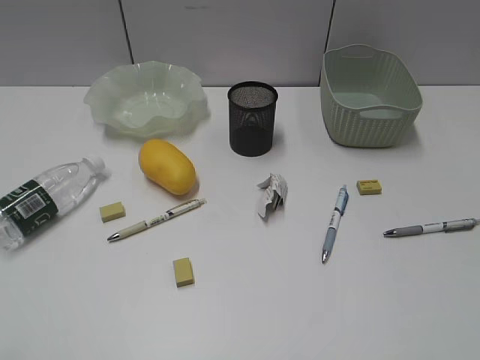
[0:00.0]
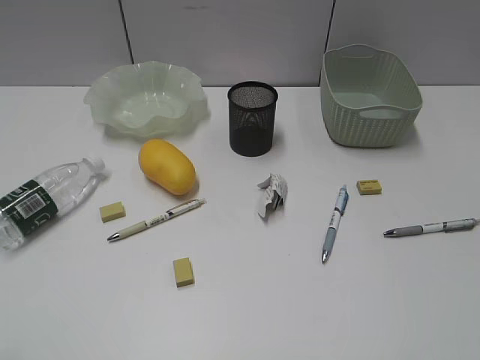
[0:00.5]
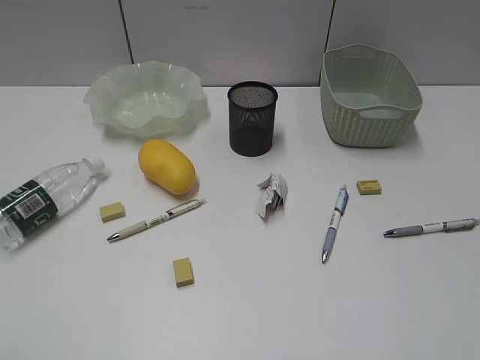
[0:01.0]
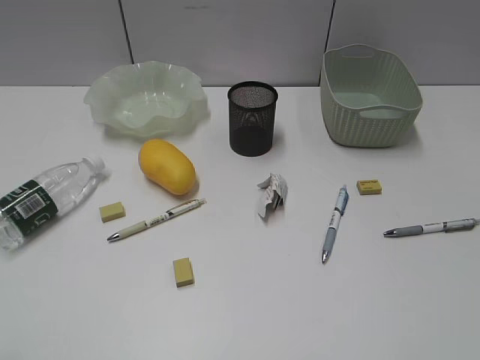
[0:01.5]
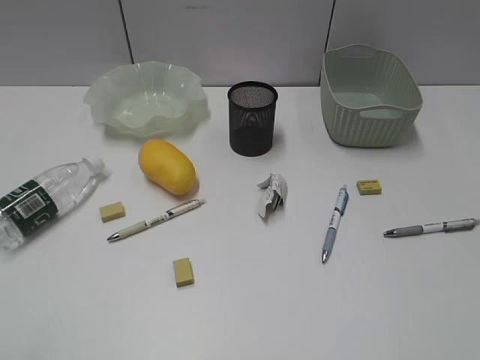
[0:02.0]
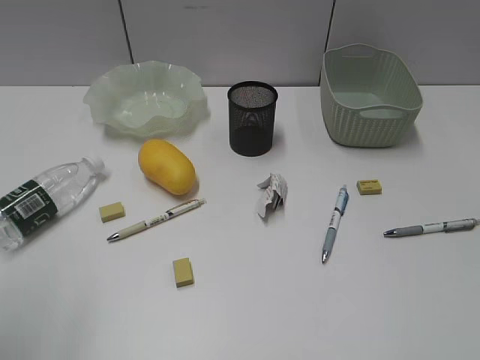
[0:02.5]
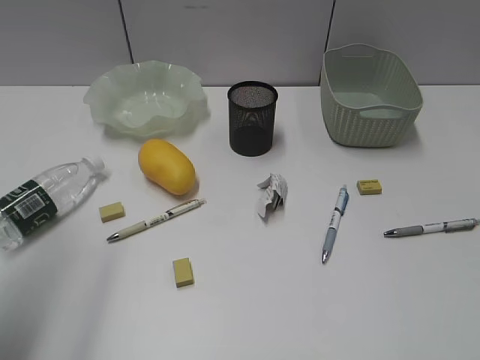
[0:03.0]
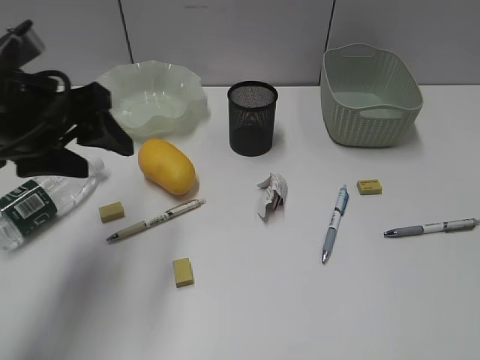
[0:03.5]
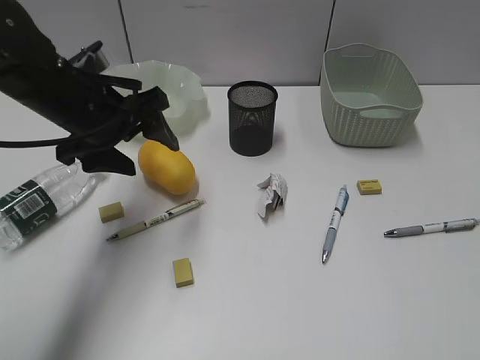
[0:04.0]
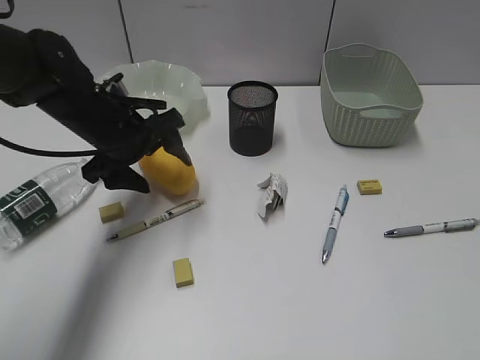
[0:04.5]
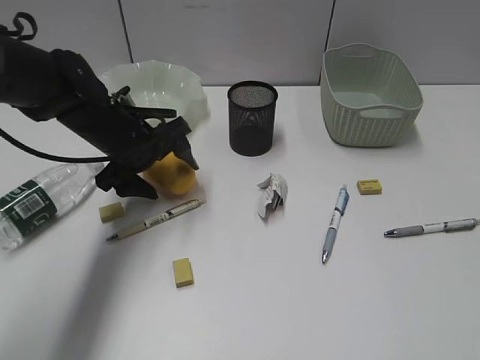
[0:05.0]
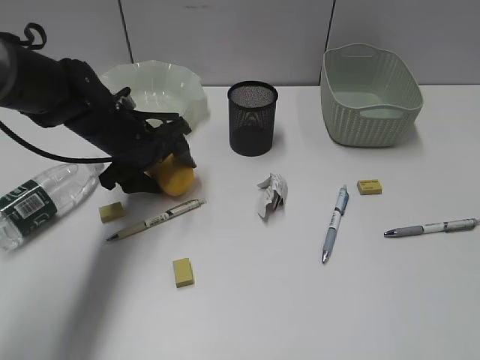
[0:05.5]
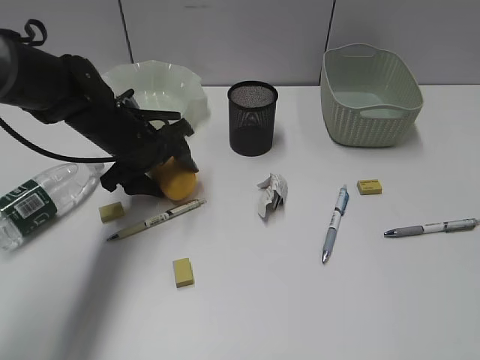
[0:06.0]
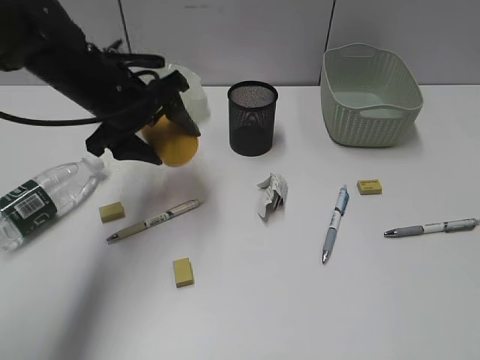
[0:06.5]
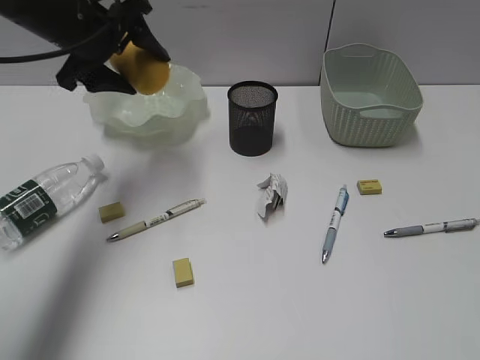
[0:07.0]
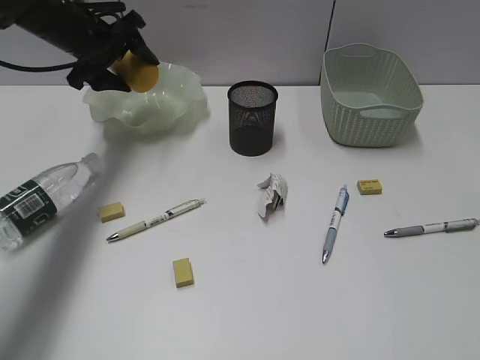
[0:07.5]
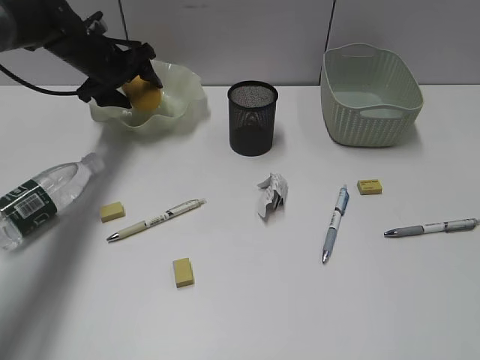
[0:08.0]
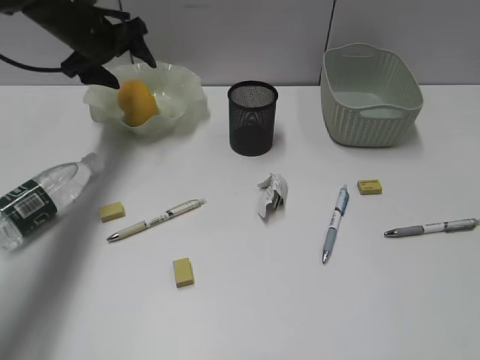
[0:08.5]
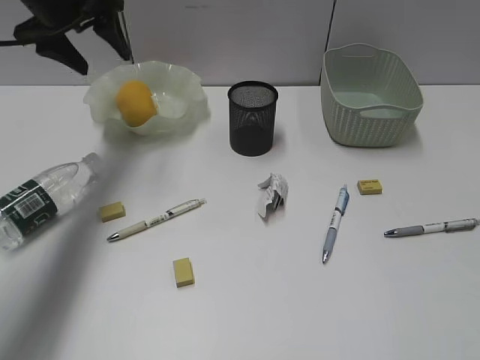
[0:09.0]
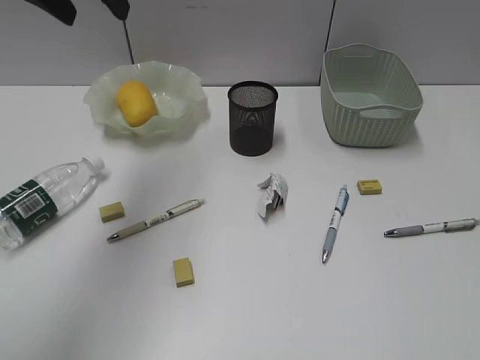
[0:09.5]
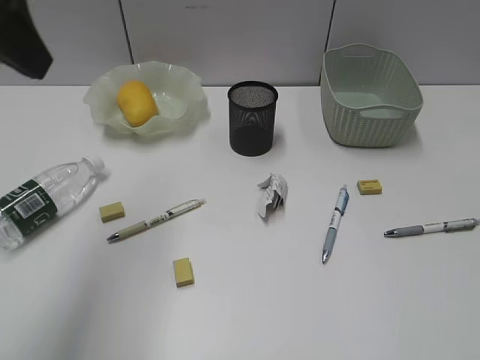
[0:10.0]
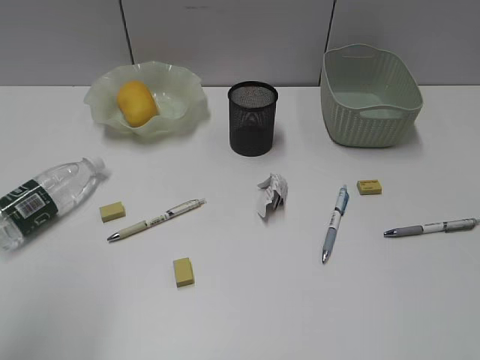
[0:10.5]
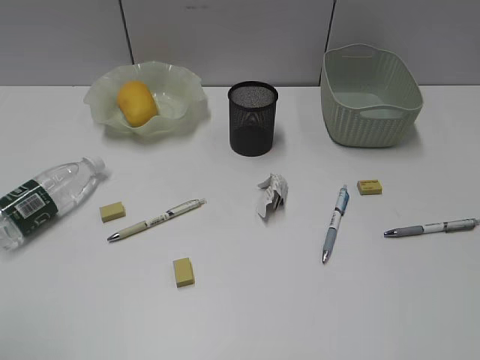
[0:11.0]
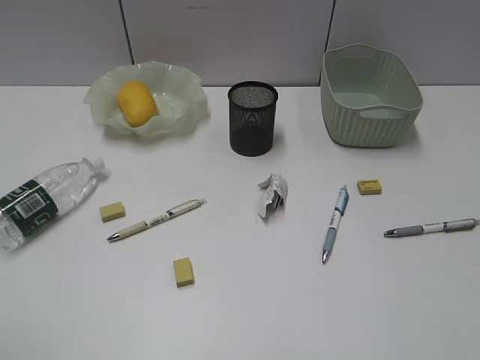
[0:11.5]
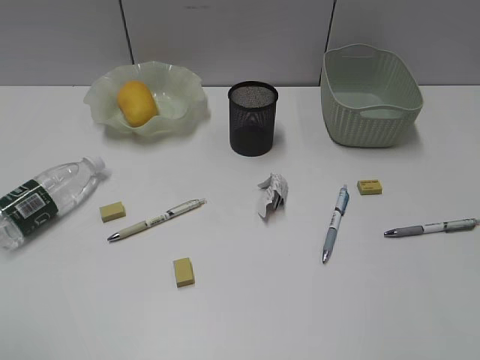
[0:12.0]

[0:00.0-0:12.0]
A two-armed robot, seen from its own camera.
Step, 0:03.5 to 0:05.5: Grasp the mango with left gripper.
Step, 0:06.0 to 0:08.0: Place the mango in the plate with left gripper.
0:02.0 to 0:04.0: The left gripper heads forward and to the right, covering about 35 cm.
0:04.0 to 0:06.0: The left gripper is displaced downward by roughly 10 cm.
0:06.0 to 0:08.0: The left gripper is displaced forward and to the left by some 15 cm.
0:08.0 to 0:10.0: The left gripper is displaced backward and upward by approximately 35 cm.
0:10.0 to 0:12.0: The left gripper moves backward, downward and to the left, roughly 25 cm.

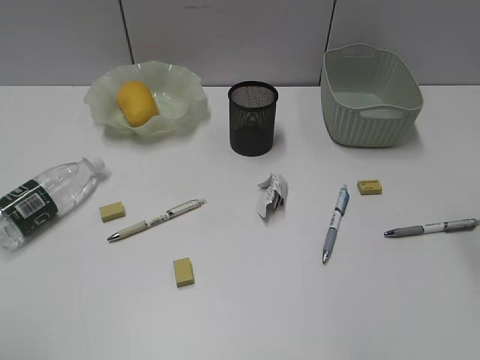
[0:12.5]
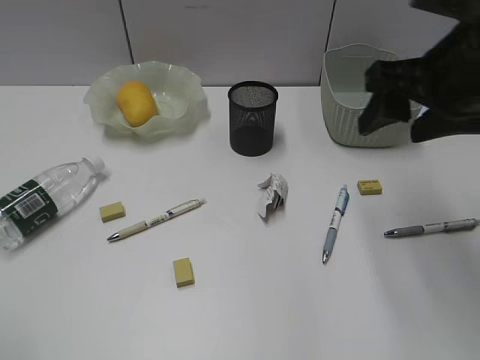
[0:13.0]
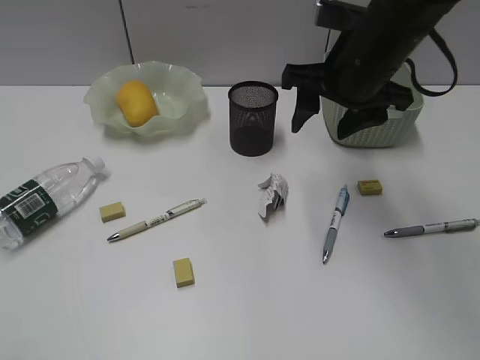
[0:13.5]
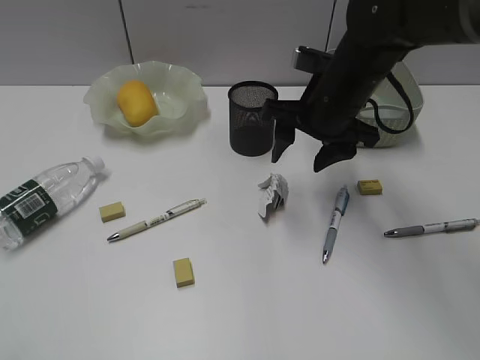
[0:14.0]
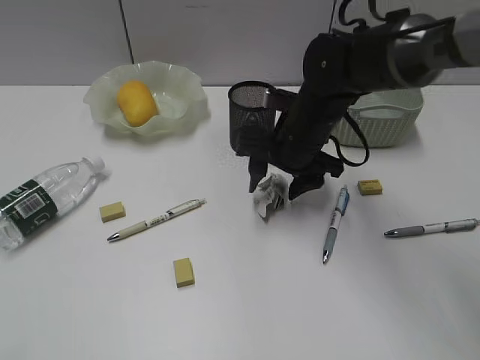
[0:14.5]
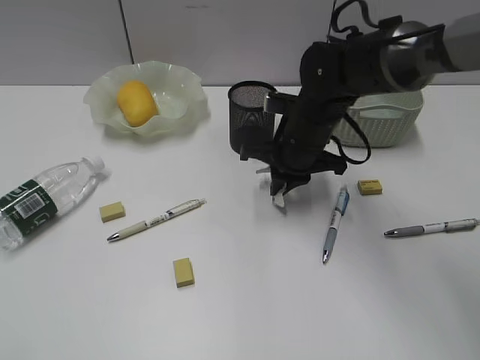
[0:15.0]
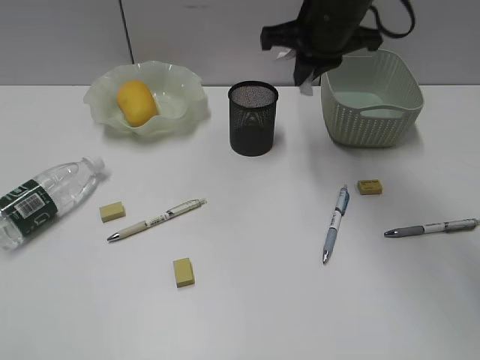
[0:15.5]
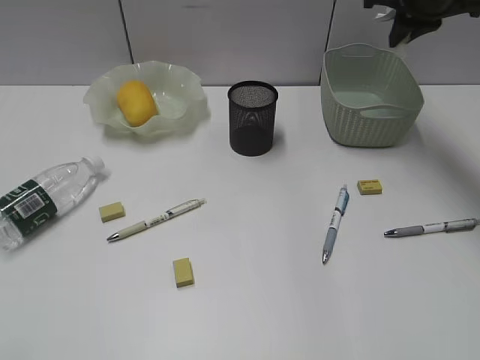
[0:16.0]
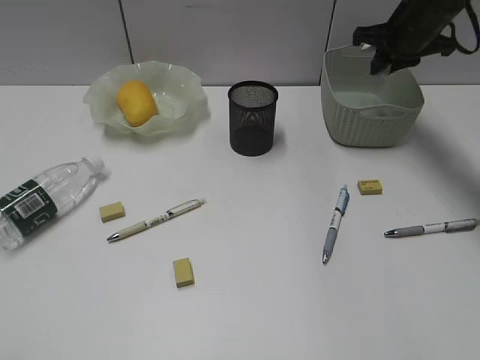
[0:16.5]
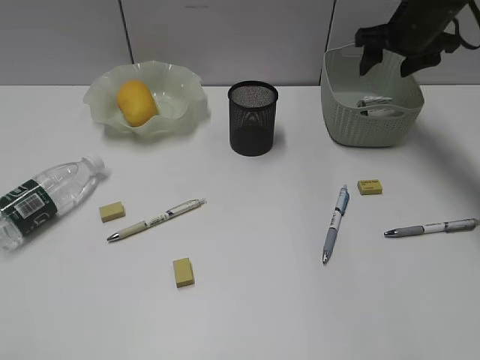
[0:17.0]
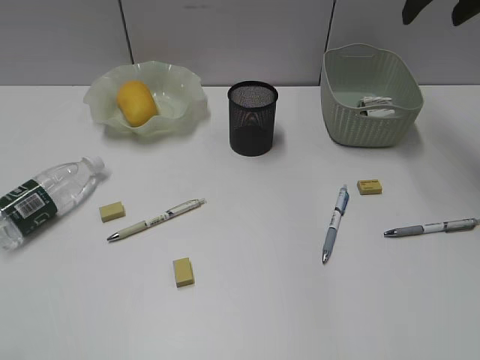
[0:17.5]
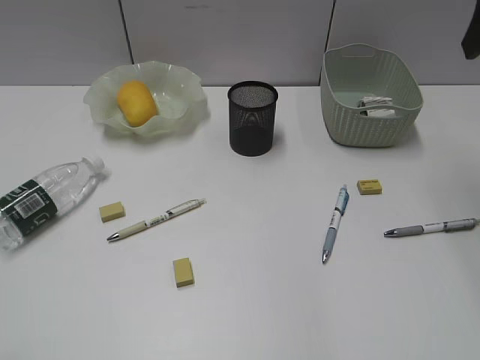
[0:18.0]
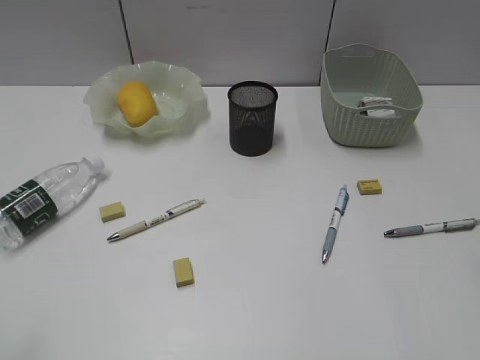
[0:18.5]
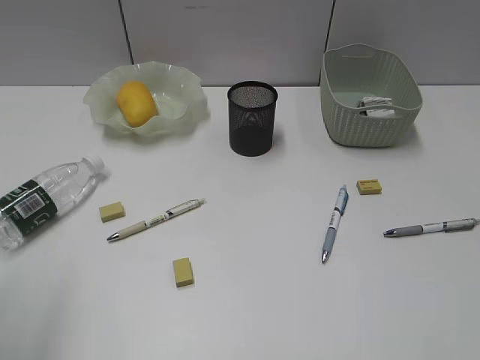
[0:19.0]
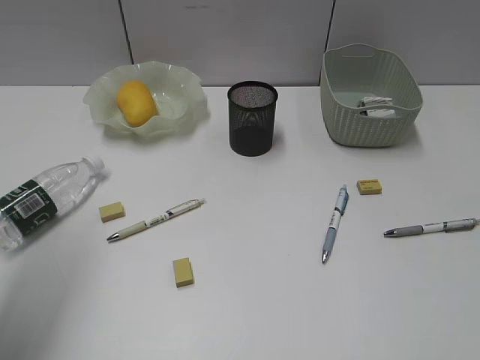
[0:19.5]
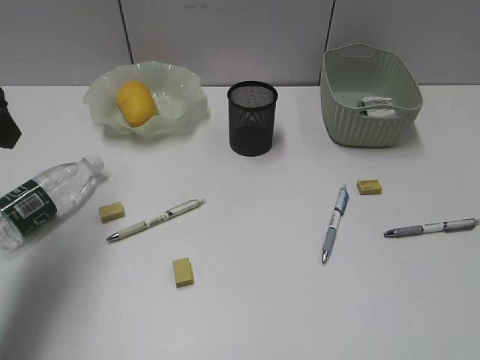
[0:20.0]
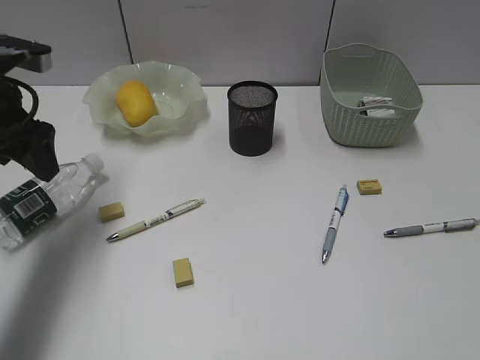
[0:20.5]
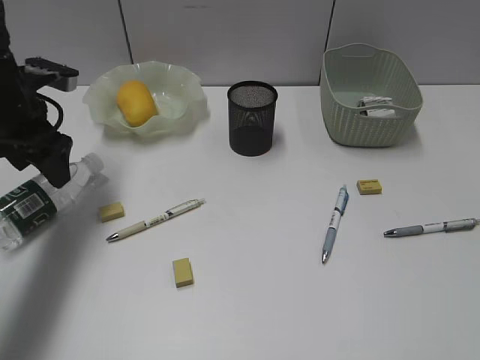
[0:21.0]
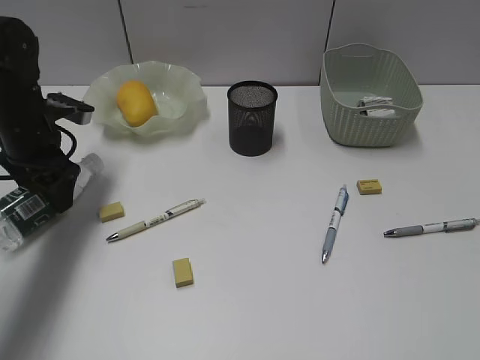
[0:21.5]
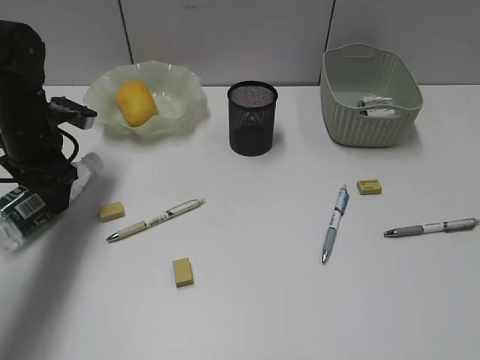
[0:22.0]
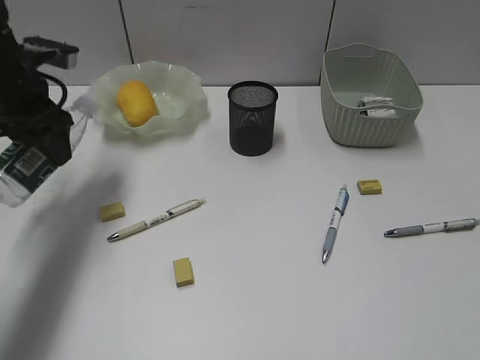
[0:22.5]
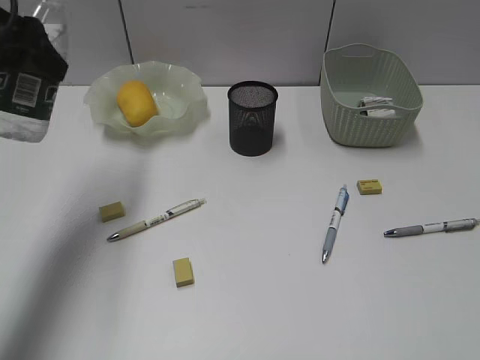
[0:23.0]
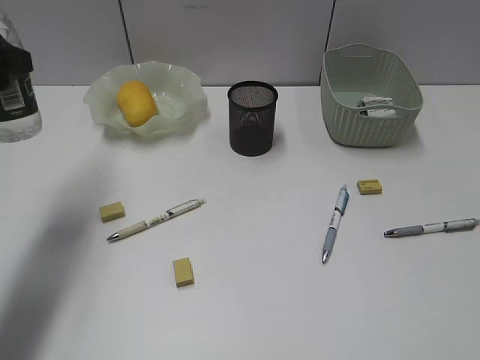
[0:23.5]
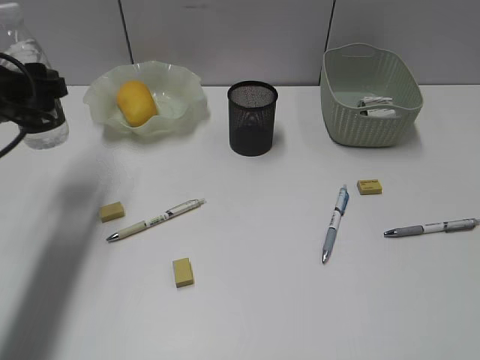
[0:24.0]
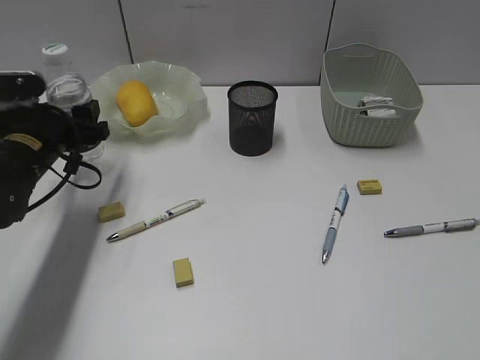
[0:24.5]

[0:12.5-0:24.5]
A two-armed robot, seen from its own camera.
Step, 0:12.5 to 0:15.0: Grasp the waste paper with right gripper.
Step, 0:15.5 to 0:16.5: Place the waste paper in the basket with right gripper.
Step, 0:17.0 to 0:22.0: Grasp the bottle with left gripper.
0:12.5 to 0:14.5: The right gripper shifts roughly 30 cm to the left, downward and forward.
0:14.5 to 0:16.5: The right gripper is displaced to the right, forward and upward by about 25 cm, and closes.
0:16.5 to 0:18.5: The right gripper travels backward by some 35 cm, and opens its fingers.
0:18.5 to 0:20.5: The left gripper shifts some 30 cm forward.
0:20.5 to 0:22.5: The left gripper reaches roughly 10 cm downward, then returns.
0:22.5 to 0:24.5: The left gripper moves downward, approximately 10 cm.

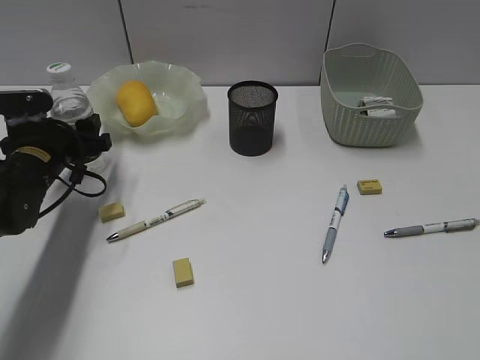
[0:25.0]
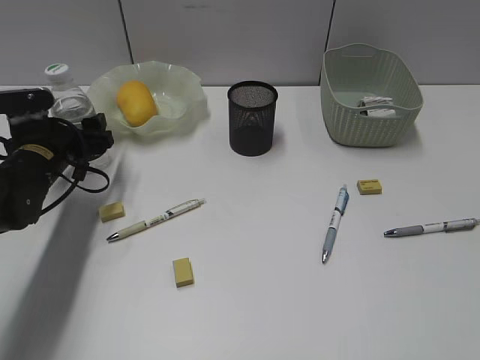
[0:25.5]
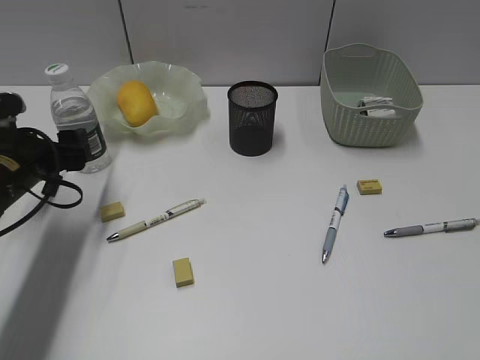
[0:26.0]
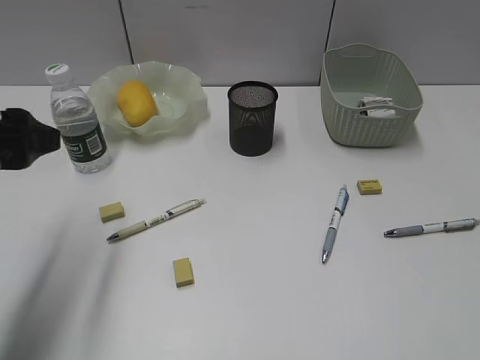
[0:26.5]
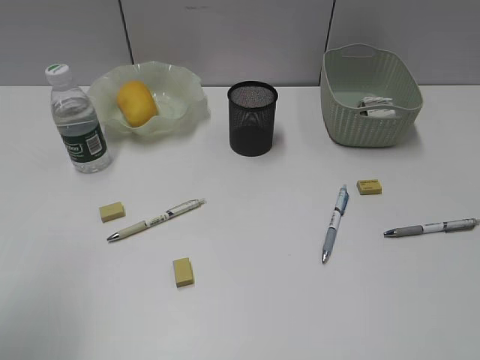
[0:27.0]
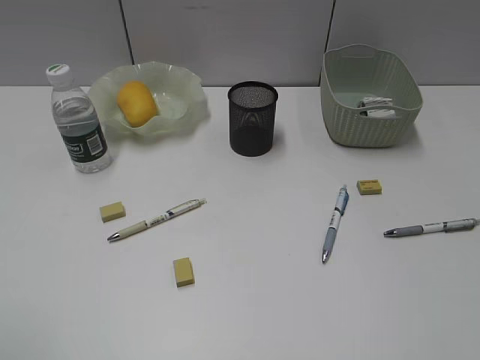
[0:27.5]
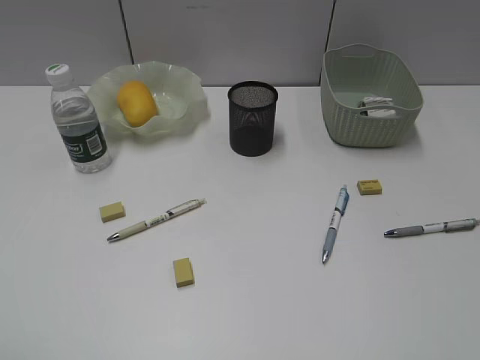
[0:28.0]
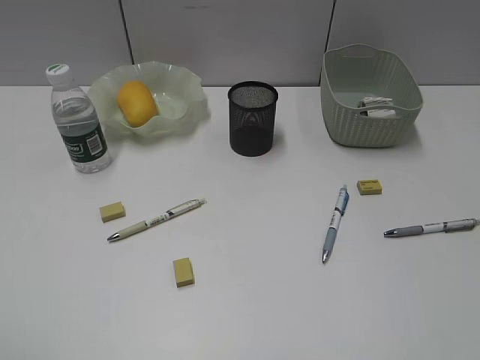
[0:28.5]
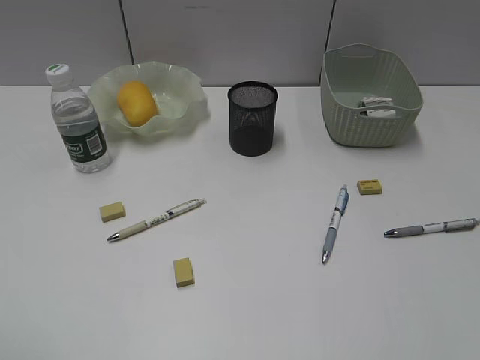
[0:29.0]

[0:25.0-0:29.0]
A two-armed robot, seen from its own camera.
0:25.0 to 0:27.0: The left gripper shifts some 30 cm backward and upward.
